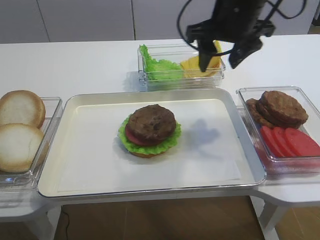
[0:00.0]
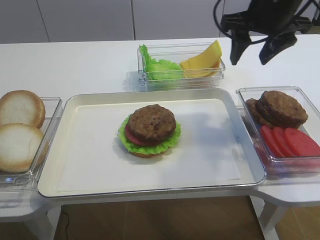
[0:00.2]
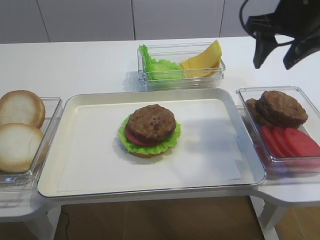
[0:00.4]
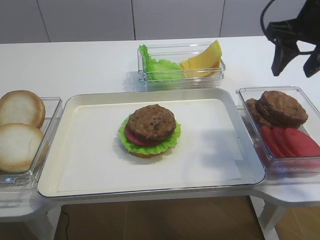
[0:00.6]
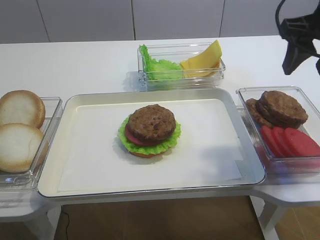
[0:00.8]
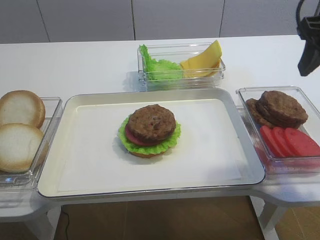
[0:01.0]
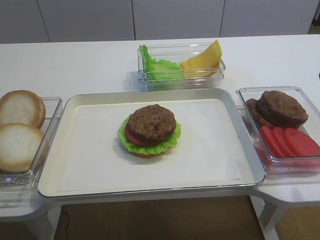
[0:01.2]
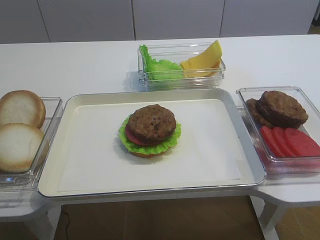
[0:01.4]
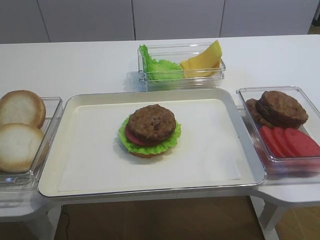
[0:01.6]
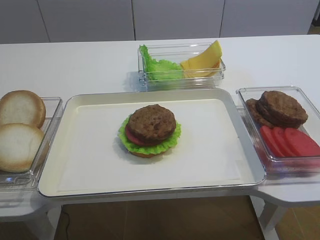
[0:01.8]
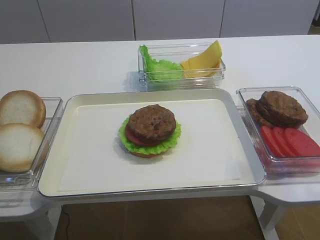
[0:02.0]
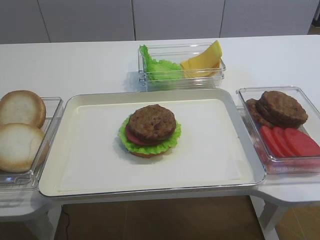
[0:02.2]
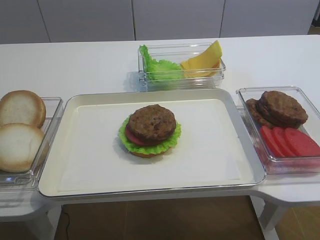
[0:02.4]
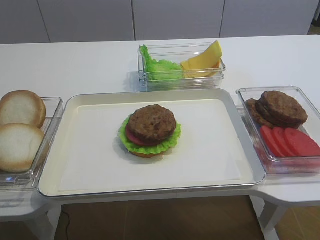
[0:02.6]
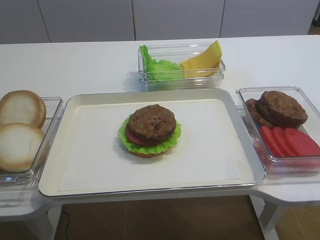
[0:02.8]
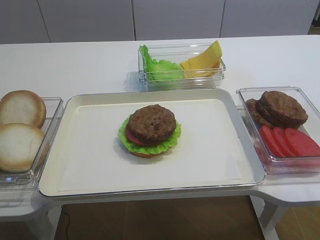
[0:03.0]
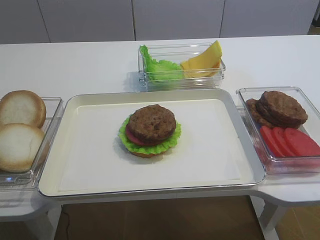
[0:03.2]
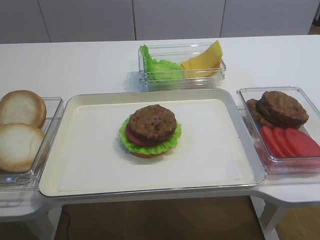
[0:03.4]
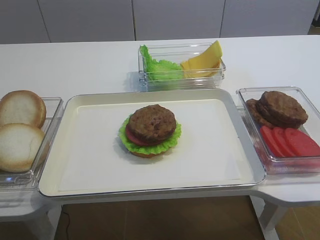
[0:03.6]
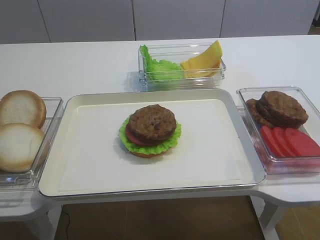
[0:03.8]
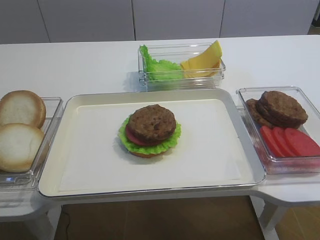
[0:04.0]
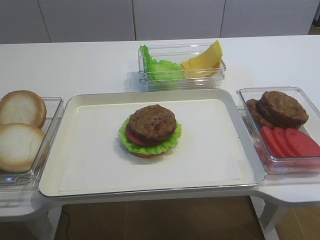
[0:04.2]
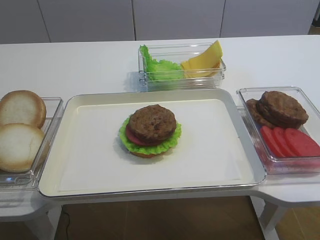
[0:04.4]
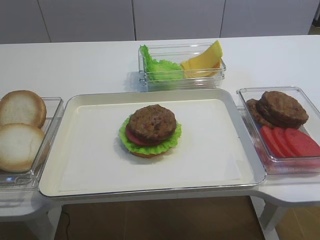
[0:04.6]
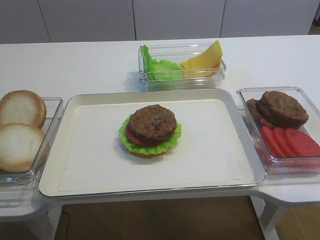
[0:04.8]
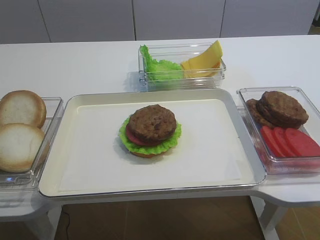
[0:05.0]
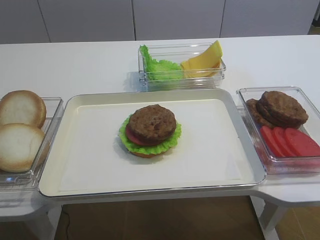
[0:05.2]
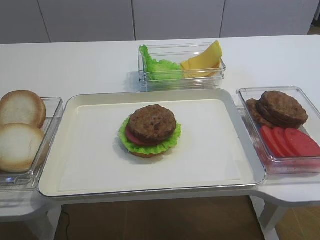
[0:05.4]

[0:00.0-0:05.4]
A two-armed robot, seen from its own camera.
0:00.0 to 0:01.4: The right gripper moves to the right and backward, some 25 cm.

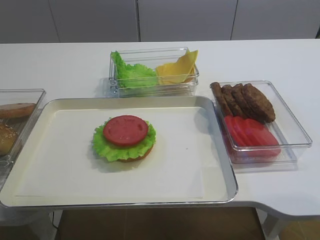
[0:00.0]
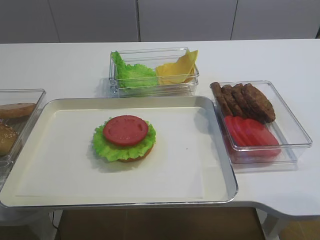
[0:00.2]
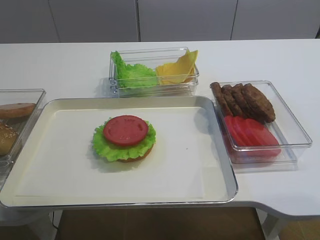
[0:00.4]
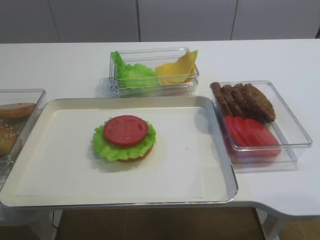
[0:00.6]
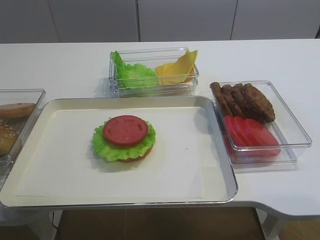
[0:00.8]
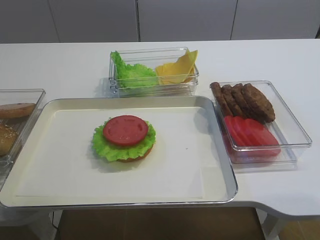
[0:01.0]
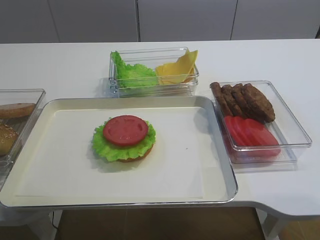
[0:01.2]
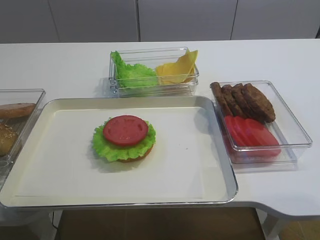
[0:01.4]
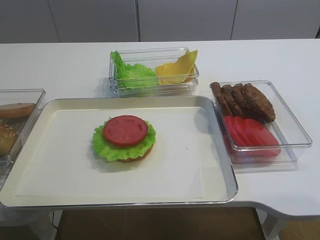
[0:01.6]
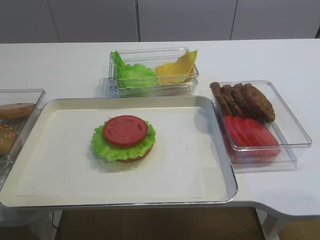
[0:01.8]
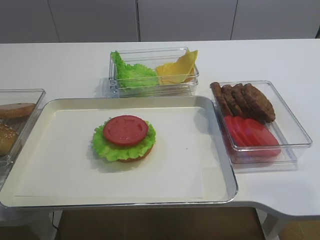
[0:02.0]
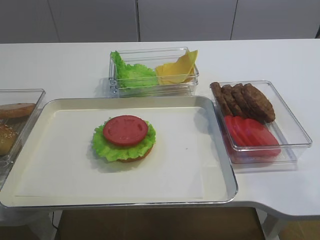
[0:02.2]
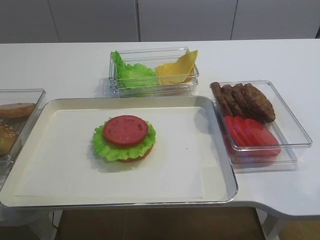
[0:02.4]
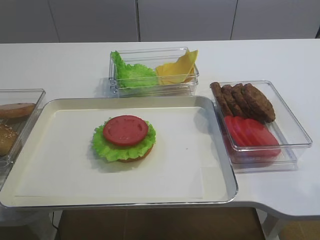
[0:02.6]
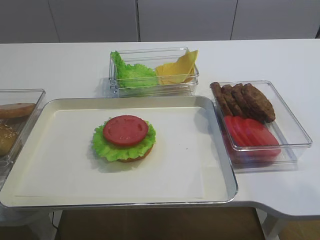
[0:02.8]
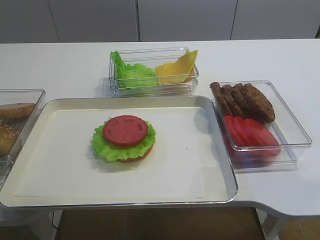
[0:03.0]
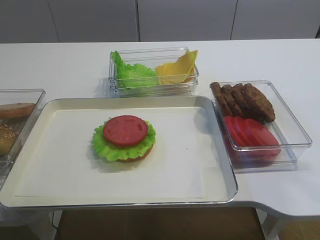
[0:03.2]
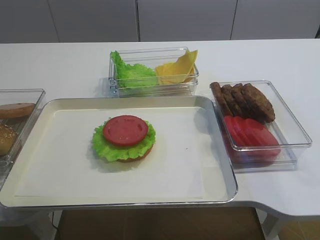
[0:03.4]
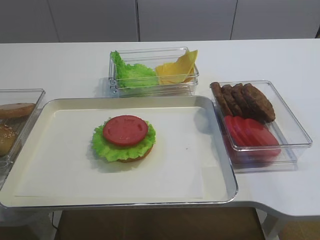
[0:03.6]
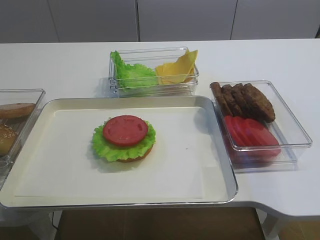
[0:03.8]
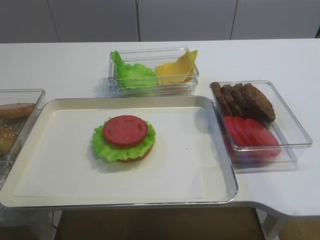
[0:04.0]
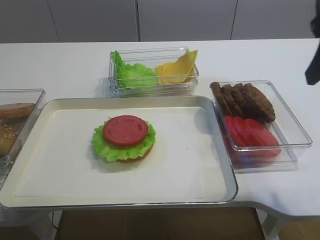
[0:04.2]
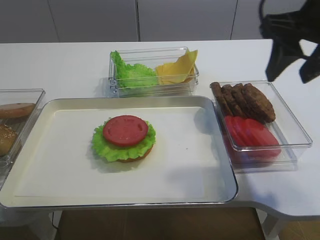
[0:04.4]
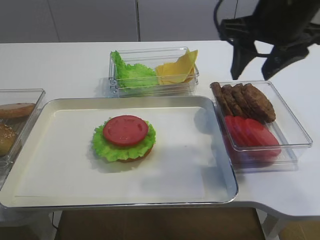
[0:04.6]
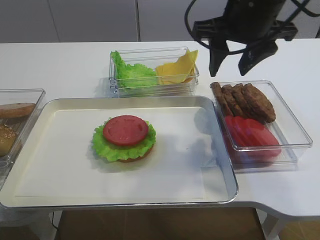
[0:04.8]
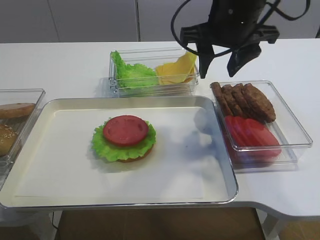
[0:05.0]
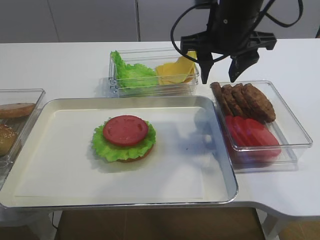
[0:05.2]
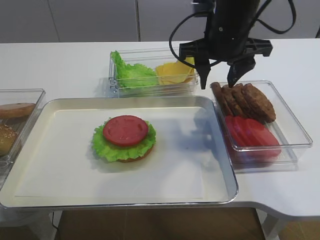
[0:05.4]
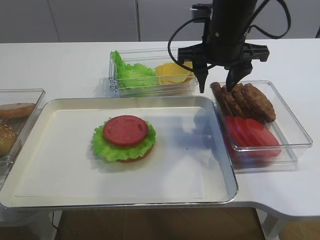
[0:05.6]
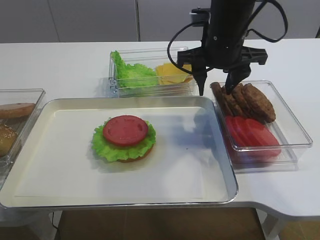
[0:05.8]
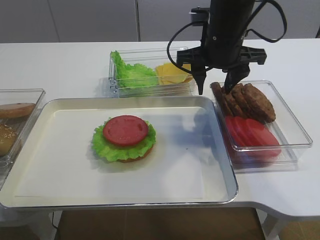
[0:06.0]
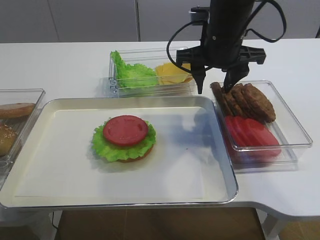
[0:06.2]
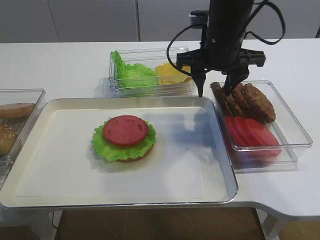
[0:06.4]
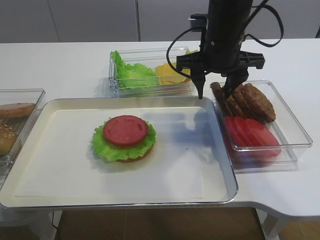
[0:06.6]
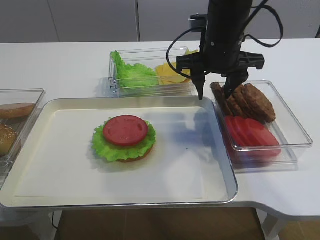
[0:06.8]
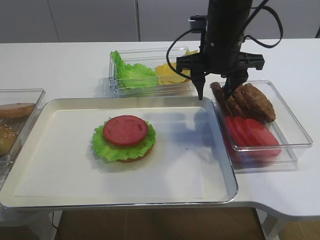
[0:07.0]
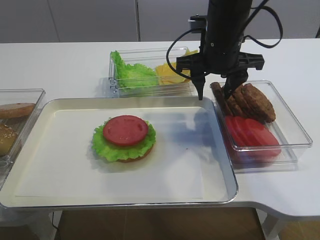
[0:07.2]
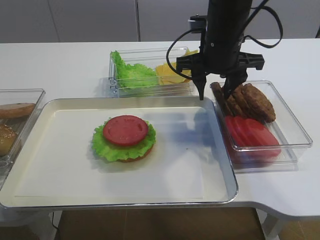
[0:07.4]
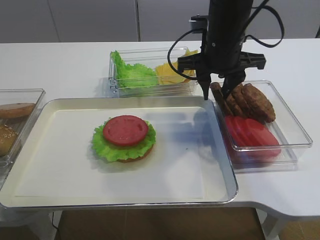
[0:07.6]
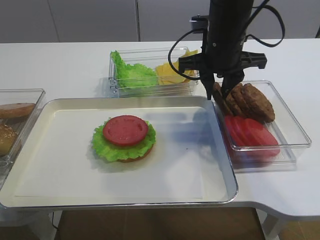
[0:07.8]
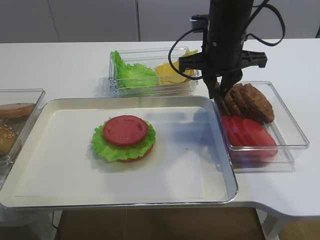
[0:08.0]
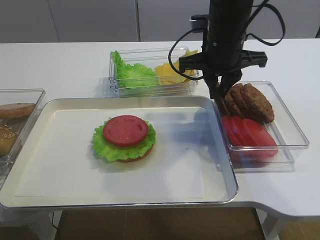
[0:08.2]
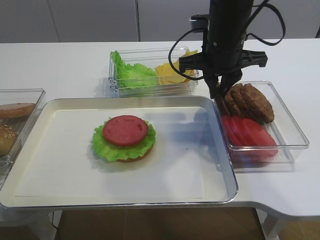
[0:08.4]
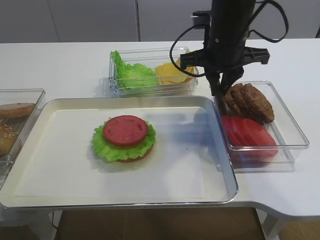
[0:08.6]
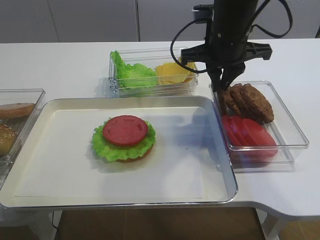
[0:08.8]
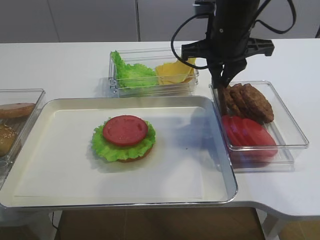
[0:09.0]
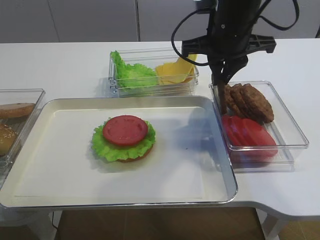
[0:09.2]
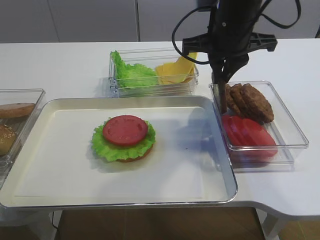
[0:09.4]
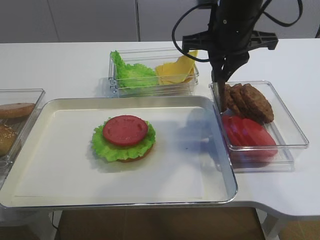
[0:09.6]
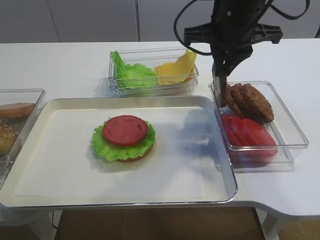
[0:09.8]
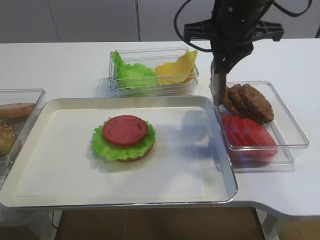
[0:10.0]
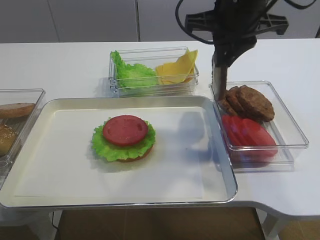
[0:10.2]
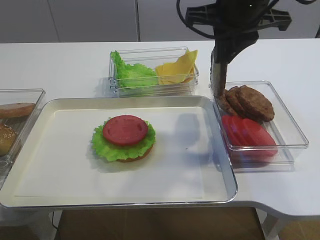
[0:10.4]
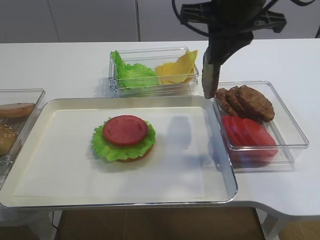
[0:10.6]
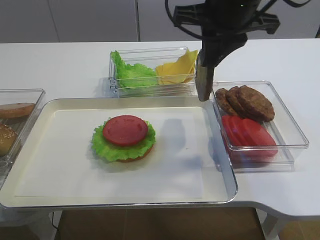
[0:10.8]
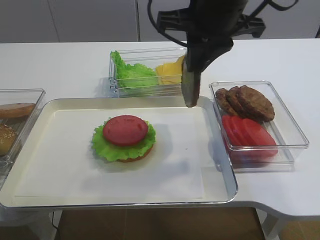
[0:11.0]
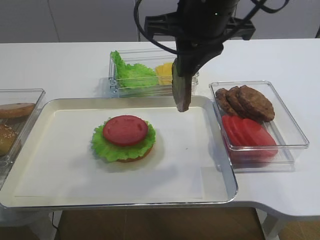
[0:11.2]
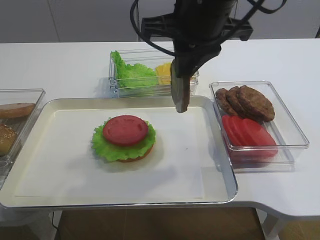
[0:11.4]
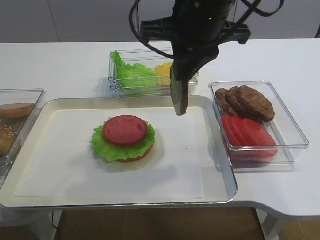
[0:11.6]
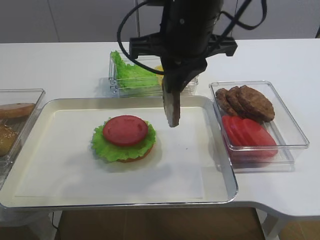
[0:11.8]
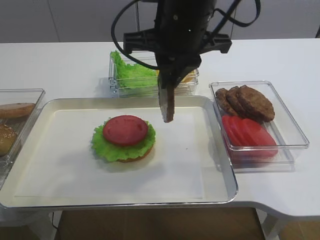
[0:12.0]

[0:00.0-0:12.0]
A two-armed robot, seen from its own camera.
Step, 0:00.0 to 0:10.0: Pick up the cutlet with the right gripper.
0:01.6 to 0:03.0: The right gripper heads upward, covering some 5 cm.
0:03.0 to 0:04.4: The right gripper is displaced forward by some 20 cm.
0:04.4 to 0:06.0: The right gripper moves forward, to the left and downward, roughly 15 cm.
0:06.0 to 0:07.6: The right gripper closes.
0:07.6 to 0:09.0: The right gripper closes.
0:09.0 to 0:10.4: The right gripper is displaced upward by roughly 5 cm.
0:10.4 to 0:12.0: The right gripper shifts roughly 10 cm to the left.

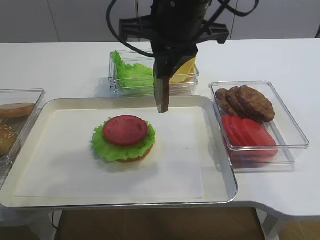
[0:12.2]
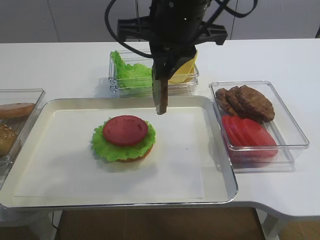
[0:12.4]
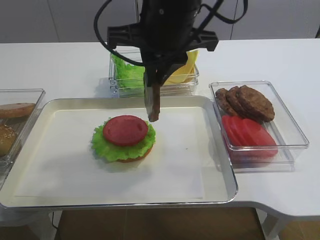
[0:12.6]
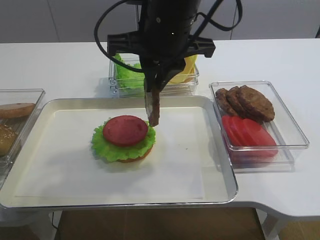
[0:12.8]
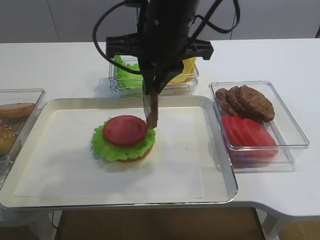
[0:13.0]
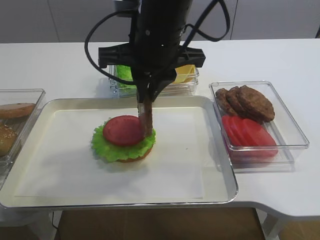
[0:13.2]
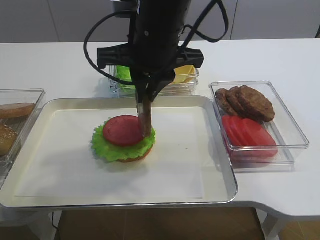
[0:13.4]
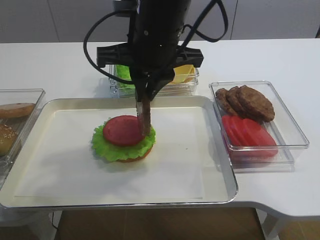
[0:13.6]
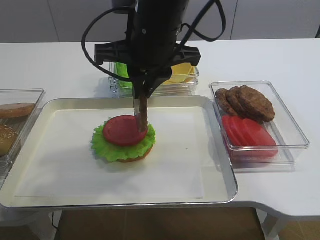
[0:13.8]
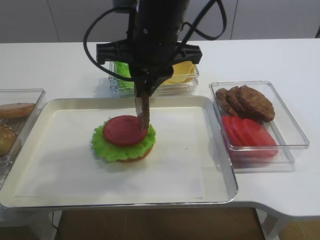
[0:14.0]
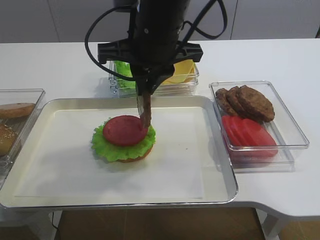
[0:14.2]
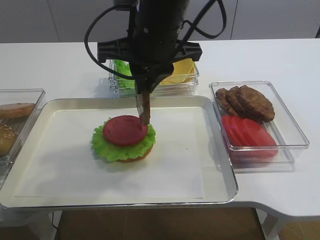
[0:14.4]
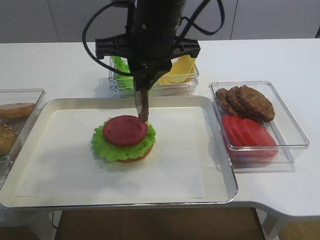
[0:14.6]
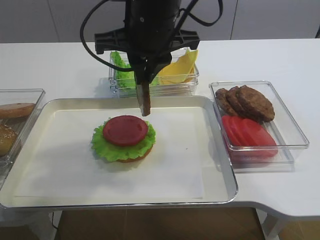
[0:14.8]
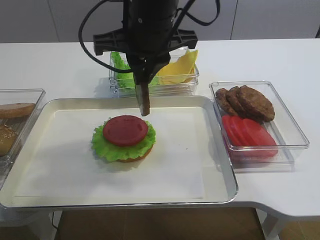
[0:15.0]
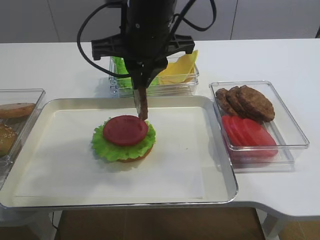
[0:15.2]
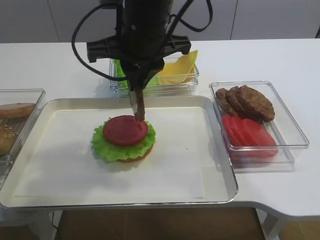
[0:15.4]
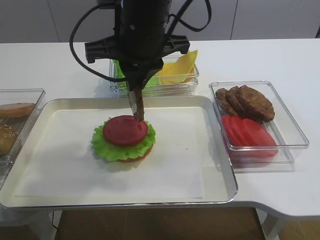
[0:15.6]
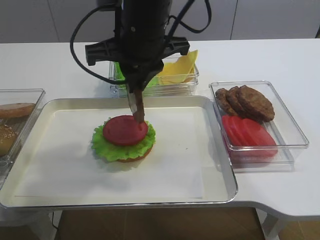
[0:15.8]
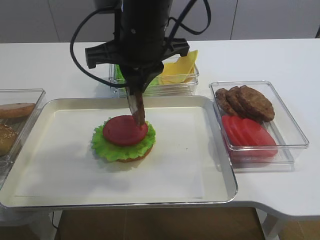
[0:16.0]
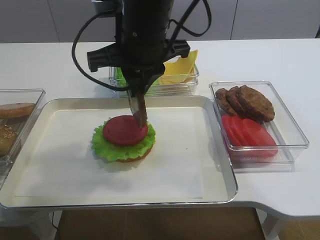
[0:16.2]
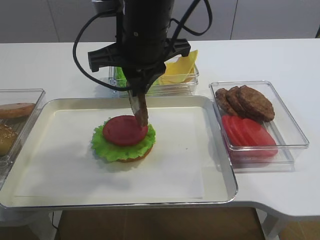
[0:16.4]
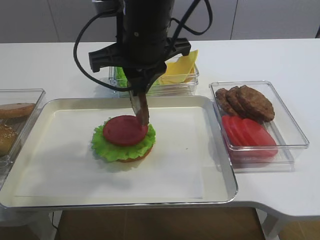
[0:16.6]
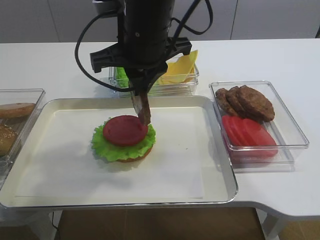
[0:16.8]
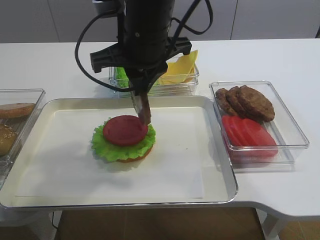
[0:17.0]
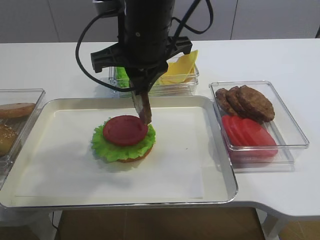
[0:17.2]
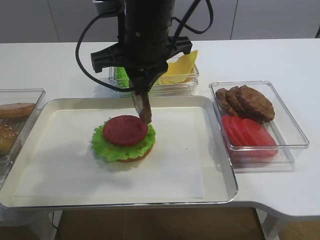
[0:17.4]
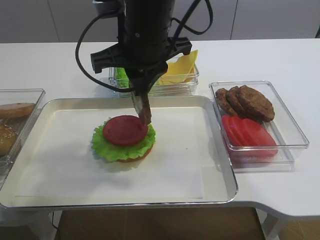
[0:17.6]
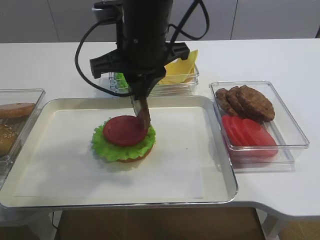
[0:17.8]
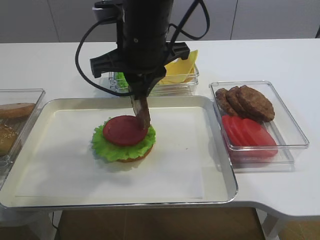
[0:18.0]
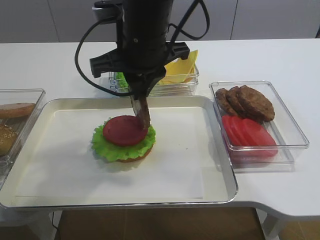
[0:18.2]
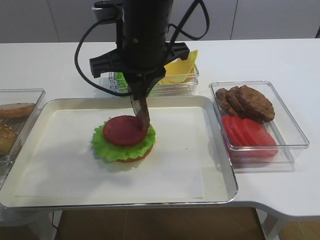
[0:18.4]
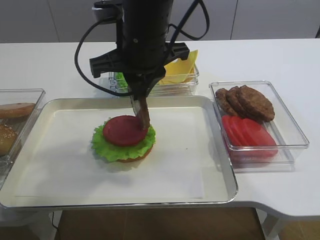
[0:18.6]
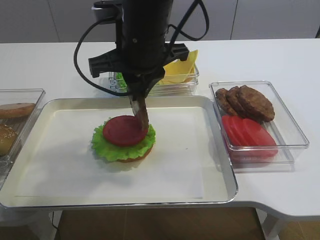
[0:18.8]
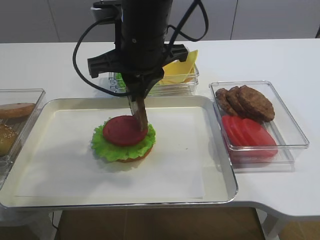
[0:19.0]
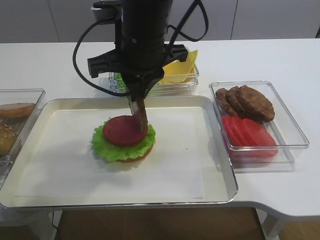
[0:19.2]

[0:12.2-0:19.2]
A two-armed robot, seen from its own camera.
0:12.2 to 0:16.4: The grippers move only a little.
0:16.4 to 0:19.2: Both grippers stay about where they are.
